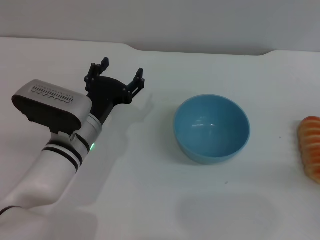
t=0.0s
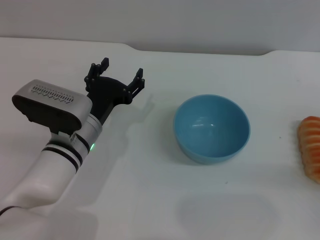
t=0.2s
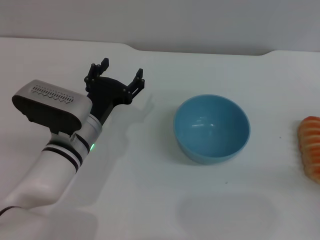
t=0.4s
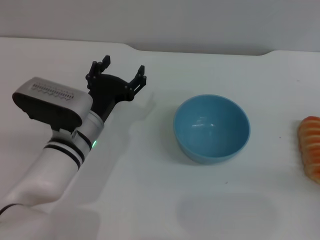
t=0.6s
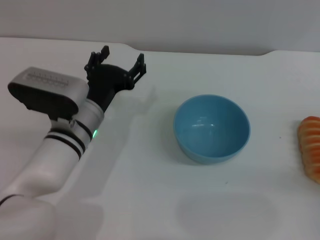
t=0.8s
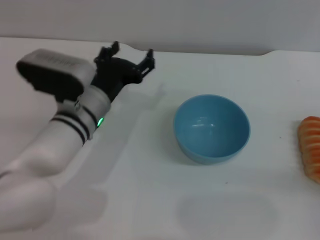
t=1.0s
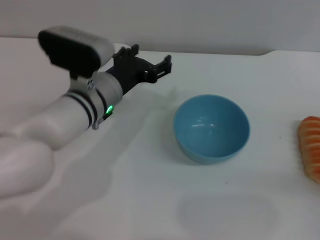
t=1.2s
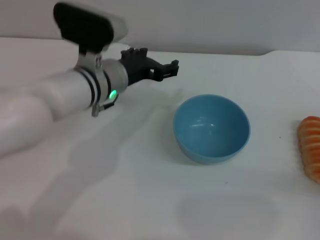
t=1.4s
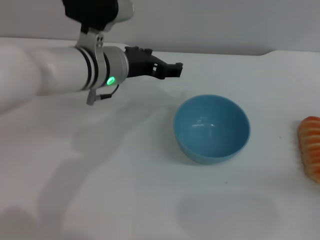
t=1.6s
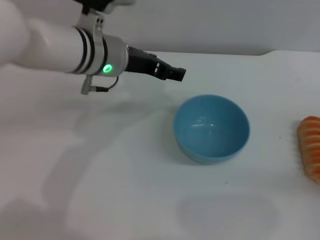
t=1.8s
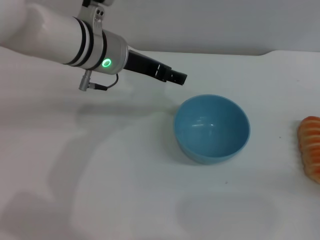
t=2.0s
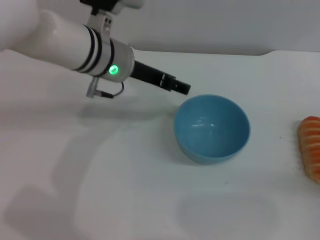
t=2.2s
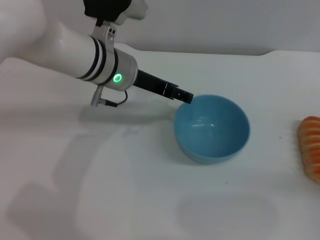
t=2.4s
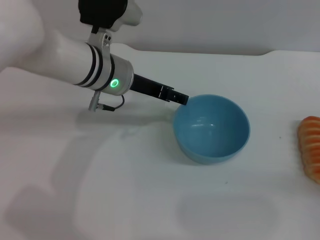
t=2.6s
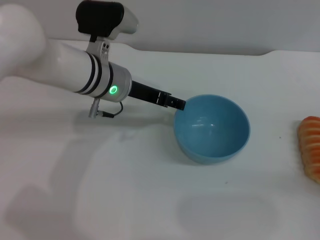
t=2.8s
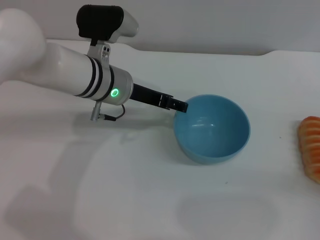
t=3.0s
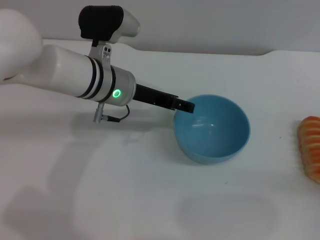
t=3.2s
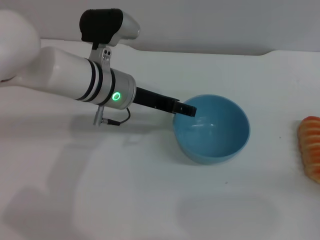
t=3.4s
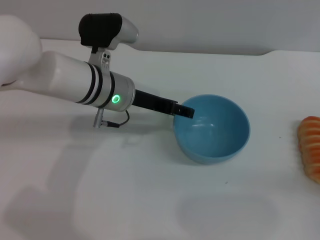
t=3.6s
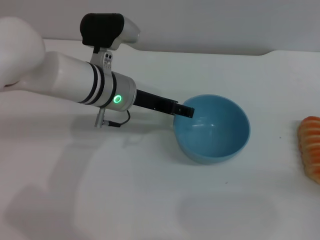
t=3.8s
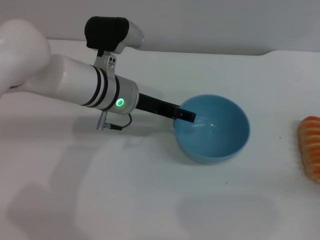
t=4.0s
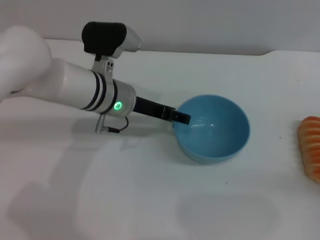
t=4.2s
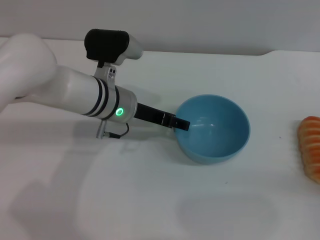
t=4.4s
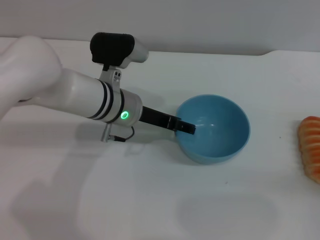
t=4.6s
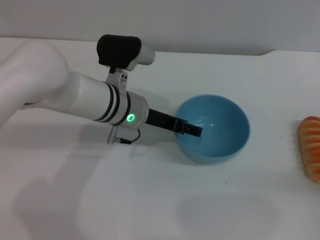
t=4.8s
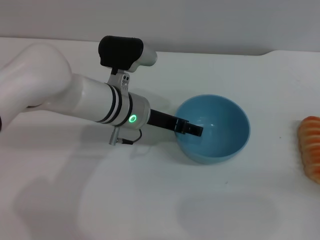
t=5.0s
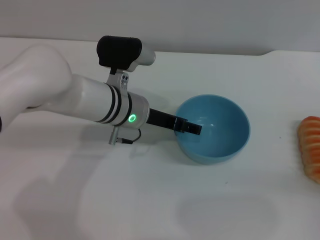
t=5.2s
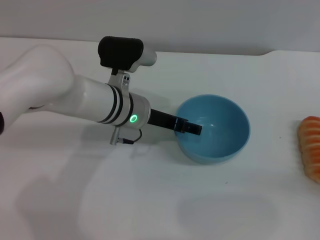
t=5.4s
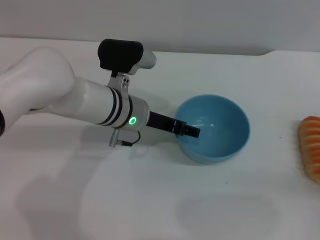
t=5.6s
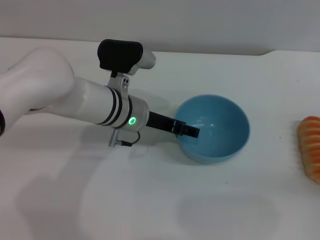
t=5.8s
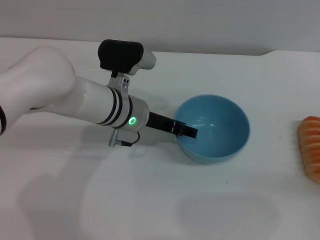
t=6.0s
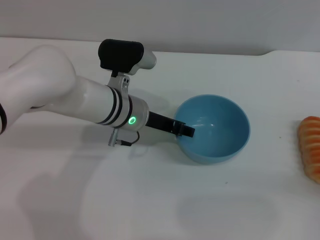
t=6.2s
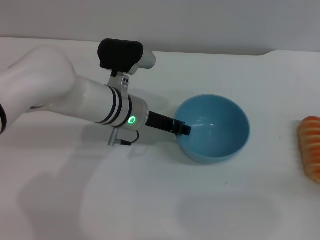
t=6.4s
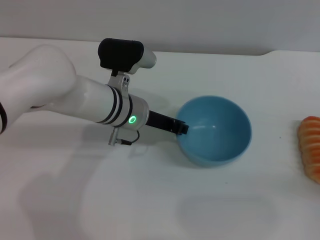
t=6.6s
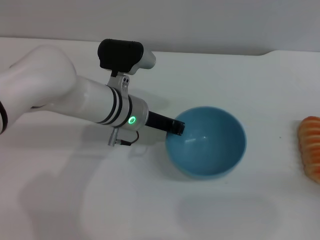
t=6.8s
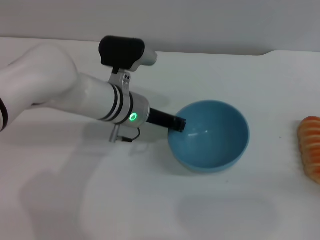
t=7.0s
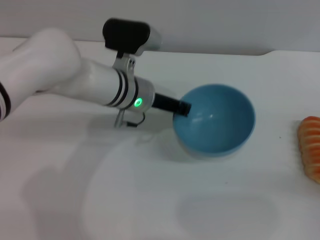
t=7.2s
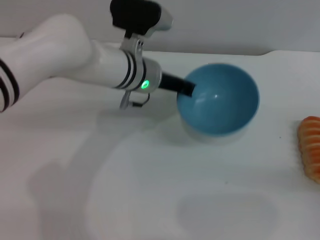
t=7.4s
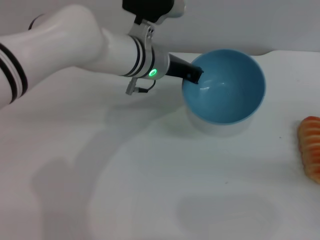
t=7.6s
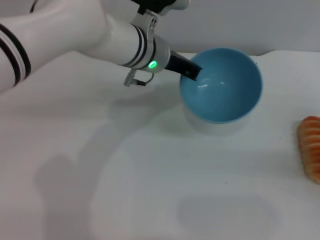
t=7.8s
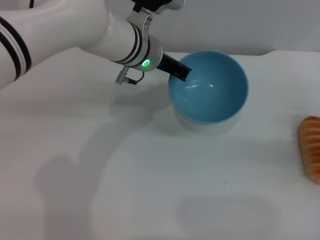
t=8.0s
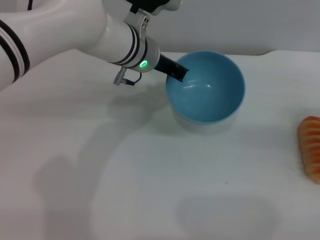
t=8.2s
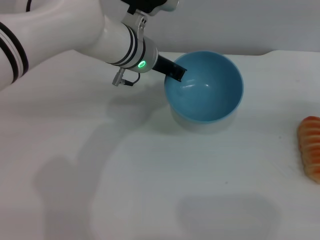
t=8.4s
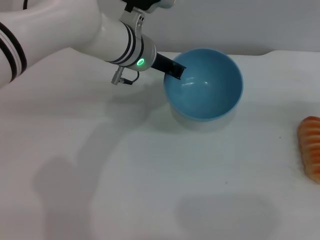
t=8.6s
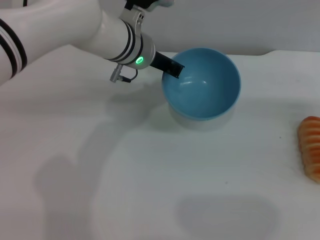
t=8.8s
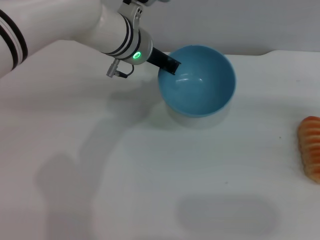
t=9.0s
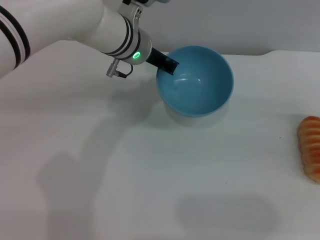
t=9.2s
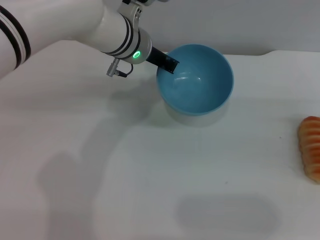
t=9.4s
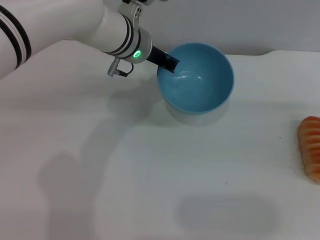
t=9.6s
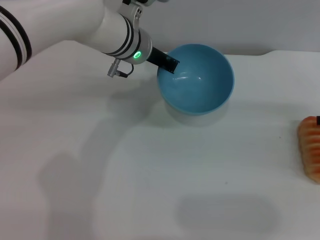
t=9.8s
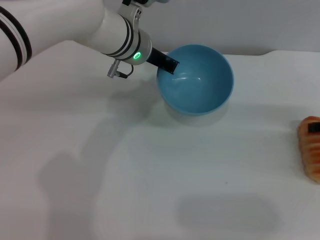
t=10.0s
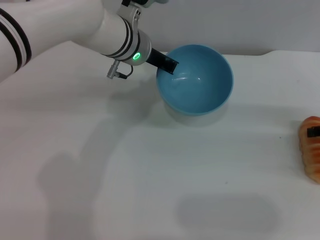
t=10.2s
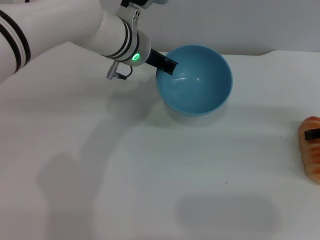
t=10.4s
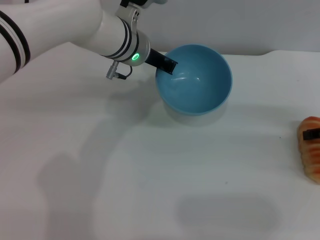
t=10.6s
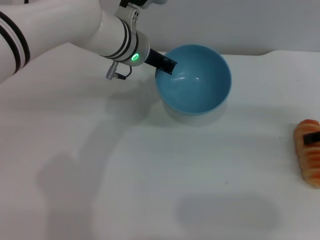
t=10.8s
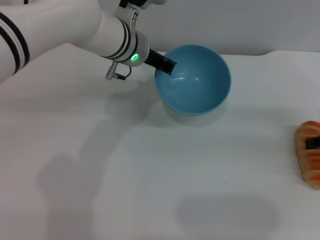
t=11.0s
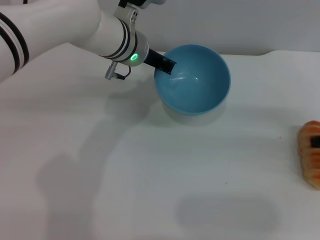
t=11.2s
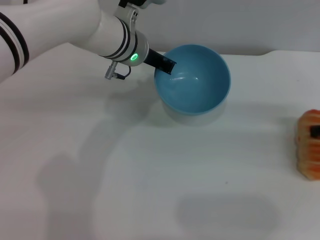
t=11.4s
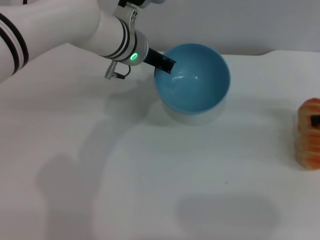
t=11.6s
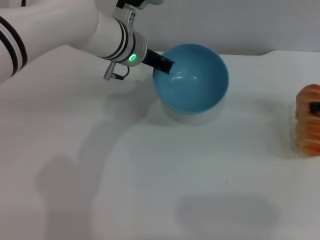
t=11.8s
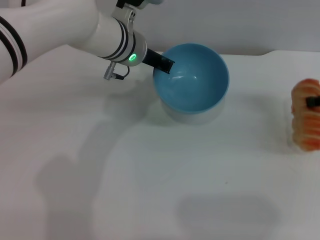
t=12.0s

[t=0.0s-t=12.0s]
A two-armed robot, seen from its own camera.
Task of the whole recording: put the bread into the blue bowl and pour it out repeatedly.
Step, t=0.0s to t=7.2s: Pick up the bowl with the left gripper.
t=0.0s to t=1.6s: The left gripper shifts some 15 cm upward and forward.
t=3.0s to t=6.0s: There are only small adjustments of the grippers.
t=6.0s to t=7.6s: The left gripper shifts some 5 cm upward, and closes.
t=7.6s to t=9.0s: The right gripper is displaced upward and forward by roughly 15 cm.
t=9.0s to t=10.4s: The right gripper changes place by some 5 cm.
t=10.4s to t=12.0s: The right gripper shifts by approximately 5 cm, and closes its fingers.

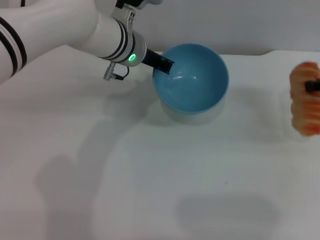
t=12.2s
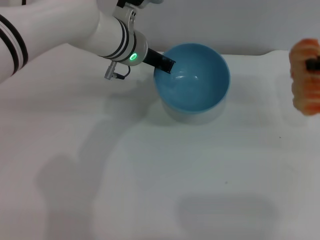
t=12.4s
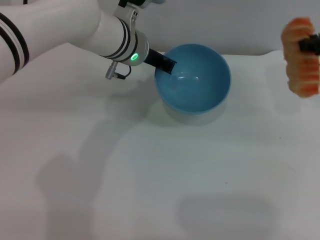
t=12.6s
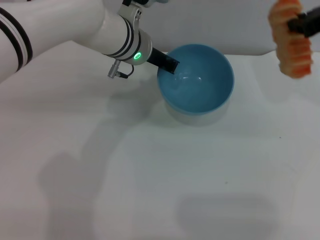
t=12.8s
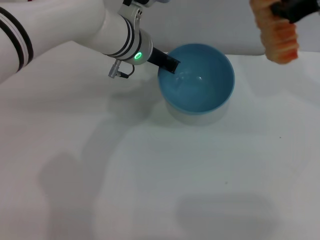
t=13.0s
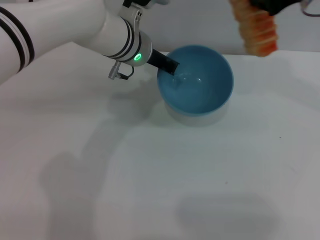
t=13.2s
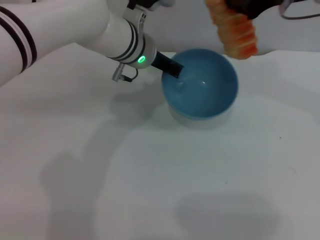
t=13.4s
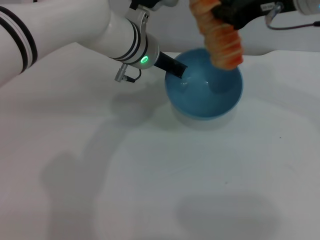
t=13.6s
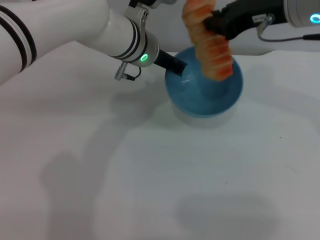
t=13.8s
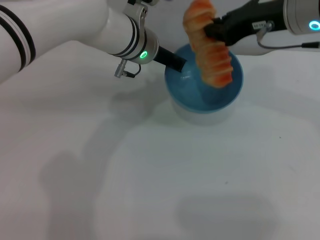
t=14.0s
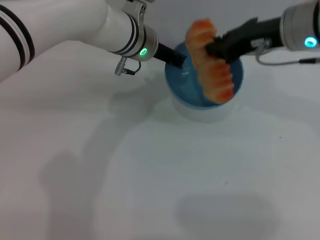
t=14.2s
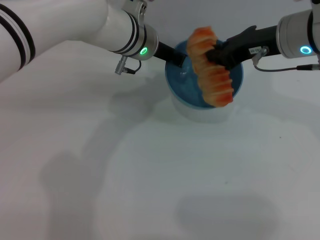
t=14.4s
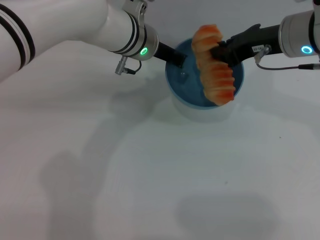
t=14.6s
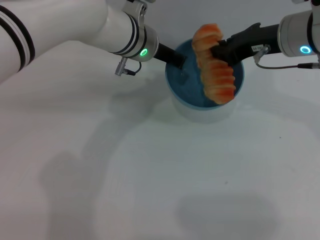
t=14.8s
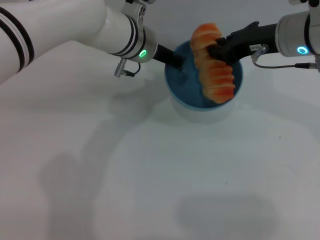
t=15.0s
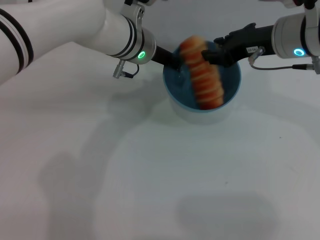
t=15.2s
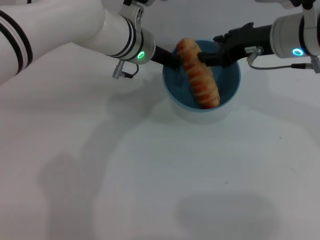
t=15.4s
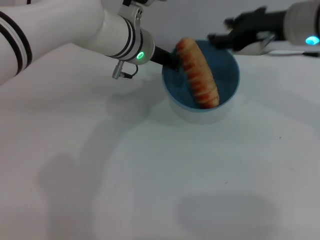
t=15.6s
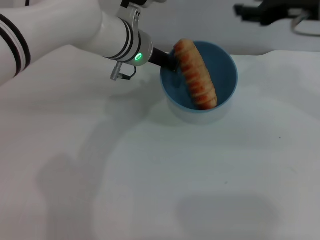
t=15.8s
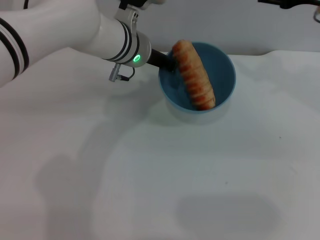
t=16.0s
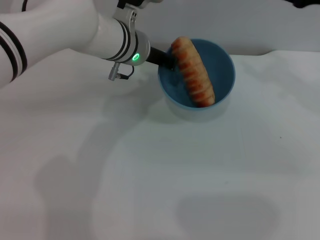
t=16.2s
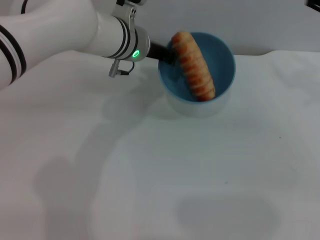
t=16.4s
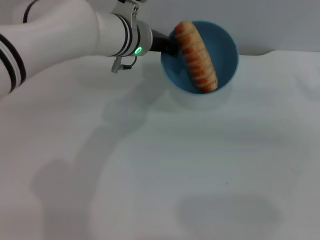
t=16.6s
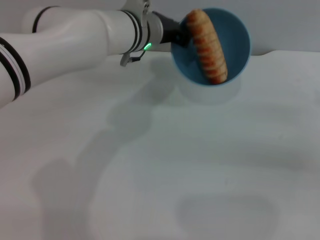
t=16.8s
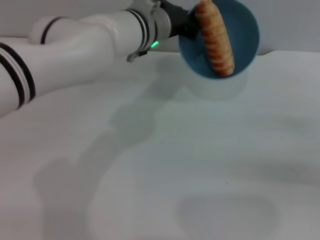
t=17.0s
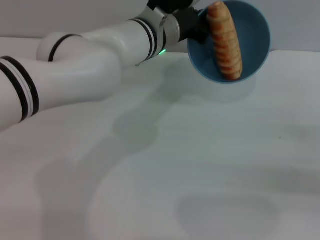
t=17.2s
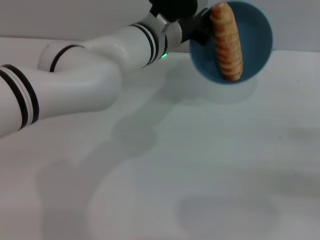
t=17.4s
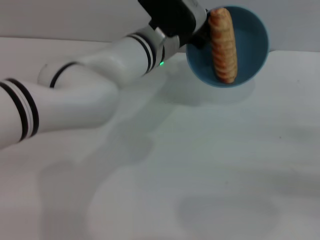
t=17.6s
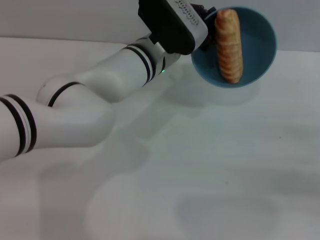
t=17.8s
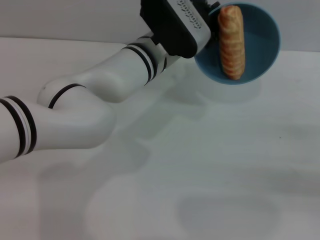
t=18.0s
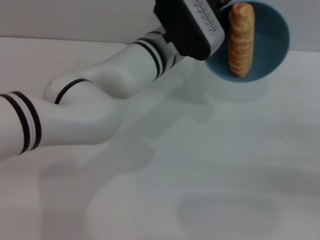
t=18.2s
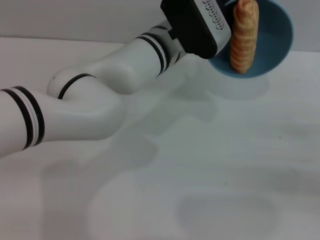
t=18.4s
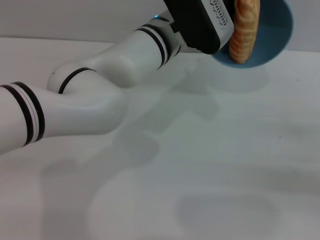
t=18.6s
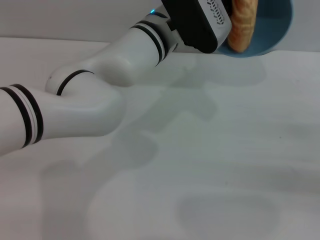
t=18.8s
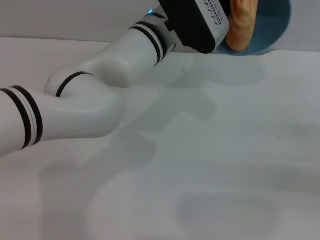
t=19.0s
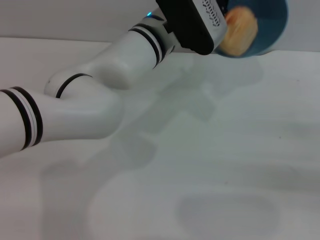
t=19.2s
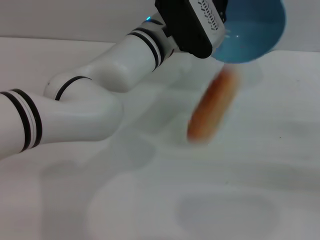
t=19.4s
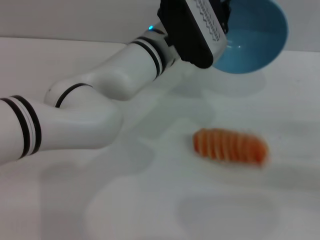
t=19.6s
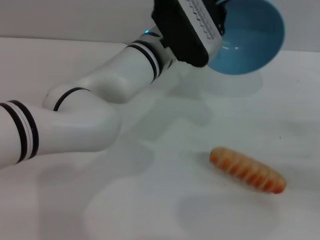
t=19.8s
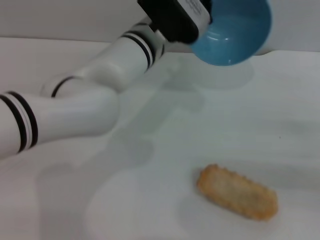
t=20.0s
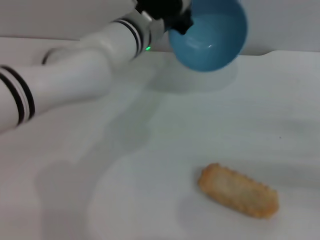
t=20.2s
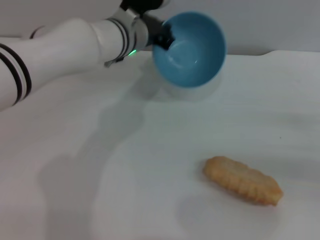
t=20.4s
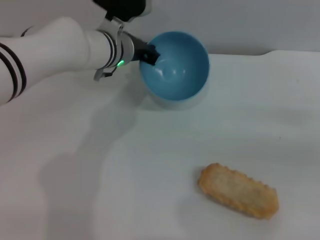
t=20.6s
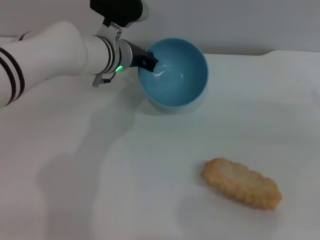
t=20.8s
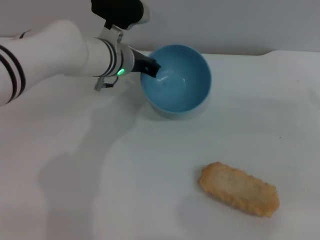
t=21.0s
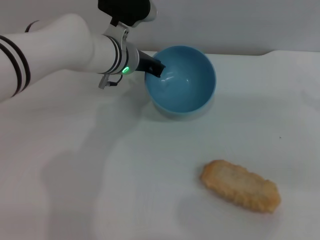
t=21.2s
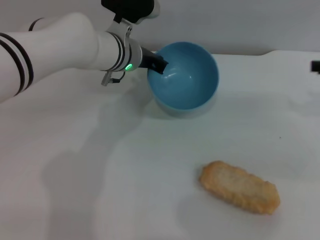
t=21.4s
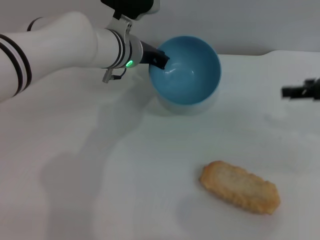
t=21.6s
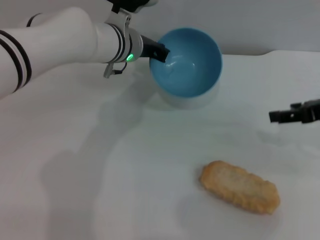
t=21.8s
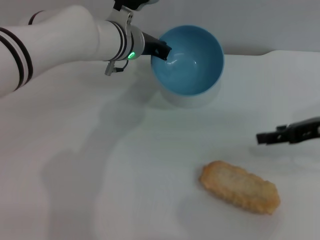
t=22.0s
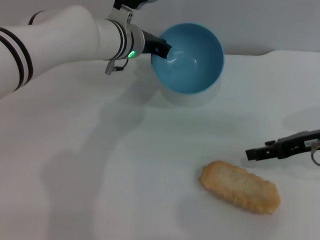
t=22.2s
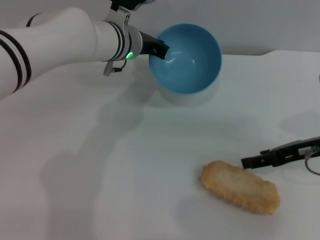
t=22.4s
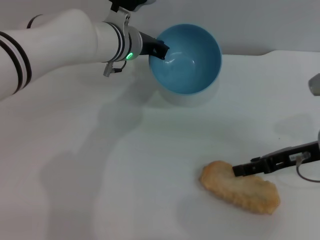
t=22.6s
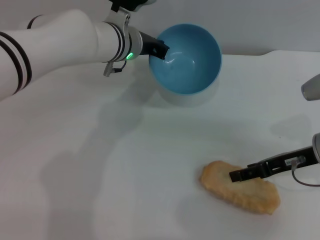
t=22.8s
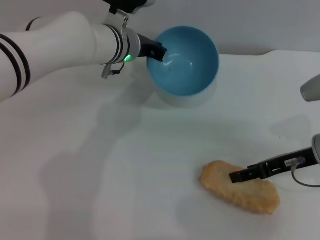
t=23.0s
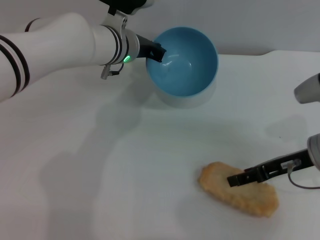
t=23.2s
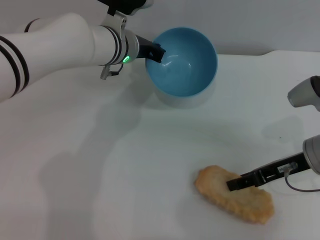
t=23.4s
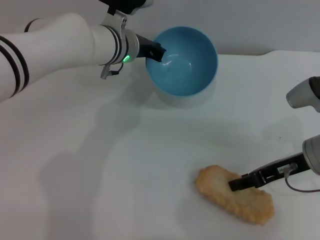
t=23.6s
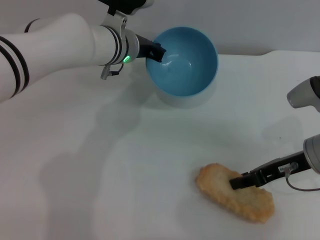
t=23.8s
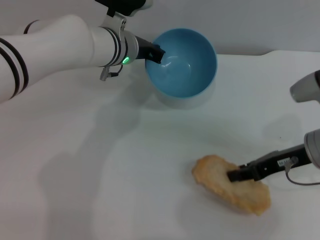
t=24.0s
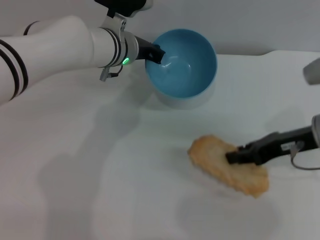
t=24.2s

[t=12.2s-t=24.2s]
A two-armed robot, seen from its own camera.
Task of the whole recording: put the bread into the blue bowl and pour it out repeatedly.
Step, t=12.4s to t=15.6s: Place the bread into the bowl.
Step, t=15.8s to t=19.6s: Pour the bread out of the bowl.
t=12.2s to t=13.8s: The right gripper is displaced to the left and upward by about 15 cm.
t=13.8s to t=15.2s: The right gripper travels downward by roughly 5 cm.
t=15.2s to t=16.6s: The right gripper is displaced to the right by approximately 20 cm, and opens its fingers.
t=16.6s to t=18.2s: The left gripper ends up roughly 5 cm from where it was; the right gripper heads backward and downward, covering approximately 10 cm.
t=18.2s to t=19.8s: There are only small adjustments of the grippers.
t=19.8s to t=21.2s: The right gripper shifts some 15 cm upward and forward; the left gripper moves to the left, about 5 cm.
t=21.2s to t=22.6s: The right gripper travels to the left and downward by roughly 15 cm.
t=22.6s to t=24.2s: The right gripper closes up.
